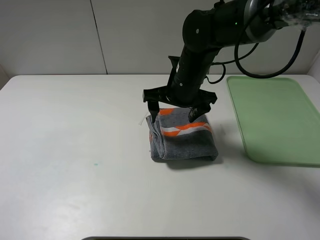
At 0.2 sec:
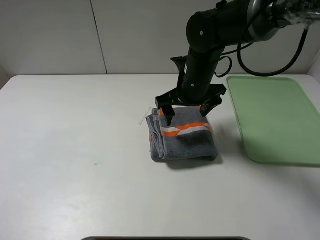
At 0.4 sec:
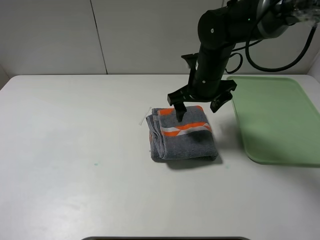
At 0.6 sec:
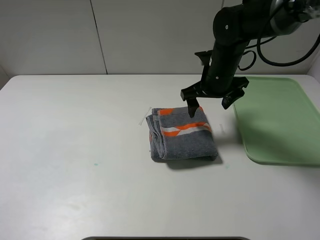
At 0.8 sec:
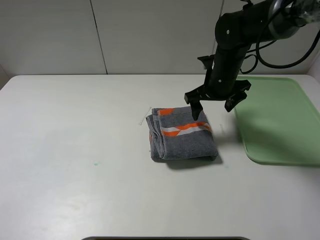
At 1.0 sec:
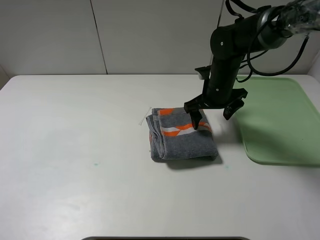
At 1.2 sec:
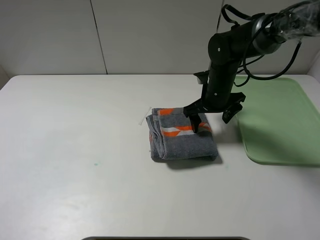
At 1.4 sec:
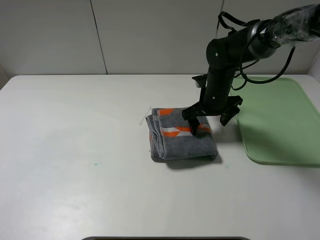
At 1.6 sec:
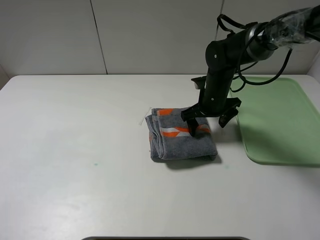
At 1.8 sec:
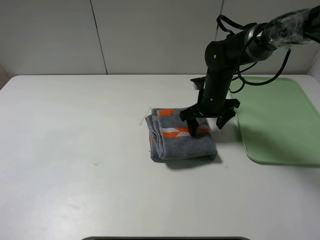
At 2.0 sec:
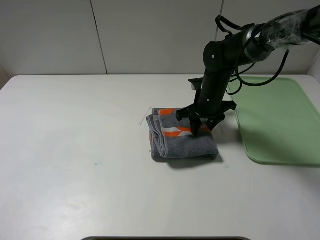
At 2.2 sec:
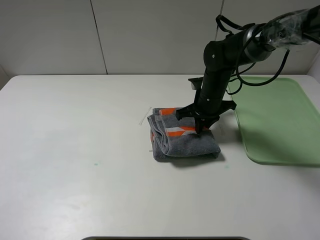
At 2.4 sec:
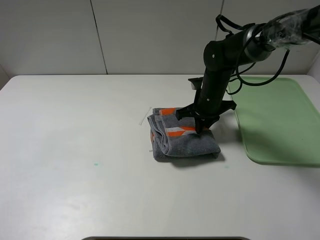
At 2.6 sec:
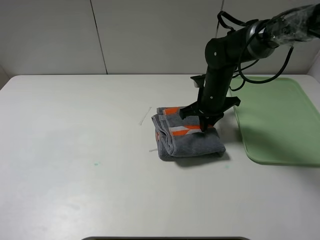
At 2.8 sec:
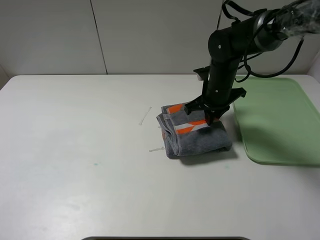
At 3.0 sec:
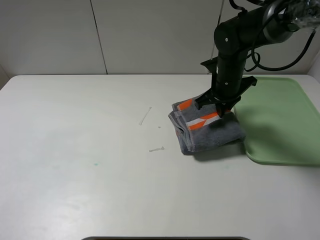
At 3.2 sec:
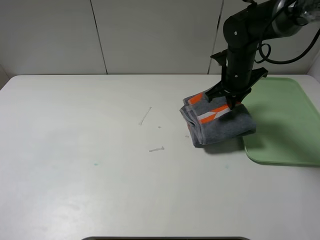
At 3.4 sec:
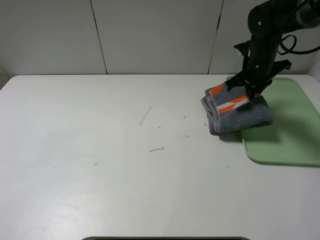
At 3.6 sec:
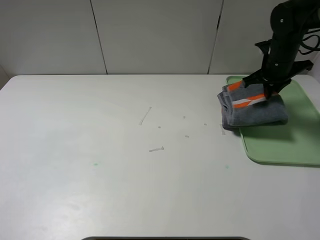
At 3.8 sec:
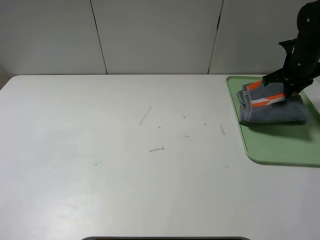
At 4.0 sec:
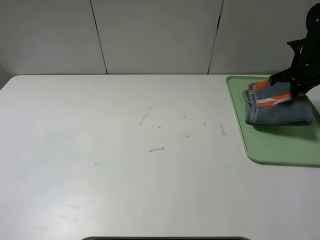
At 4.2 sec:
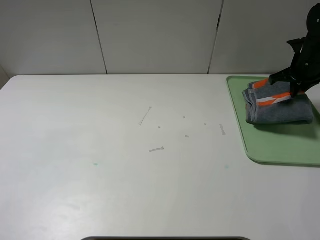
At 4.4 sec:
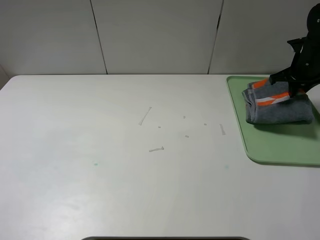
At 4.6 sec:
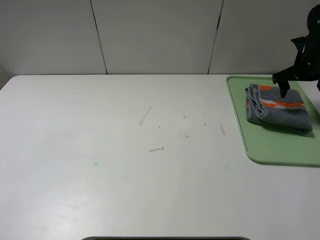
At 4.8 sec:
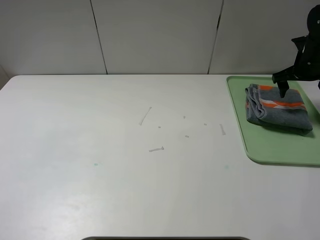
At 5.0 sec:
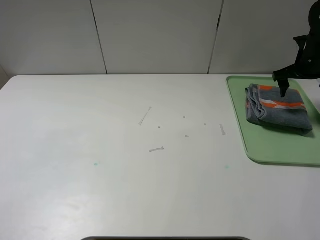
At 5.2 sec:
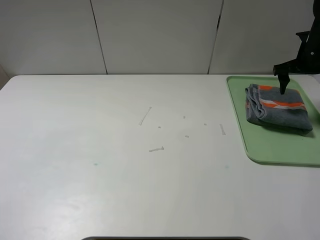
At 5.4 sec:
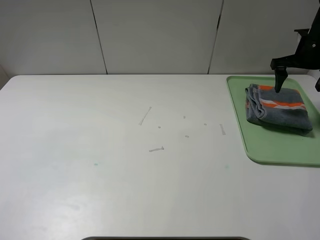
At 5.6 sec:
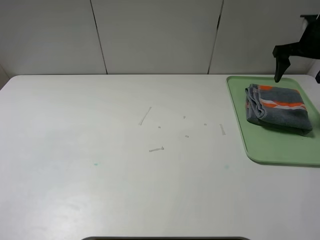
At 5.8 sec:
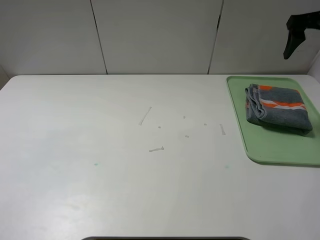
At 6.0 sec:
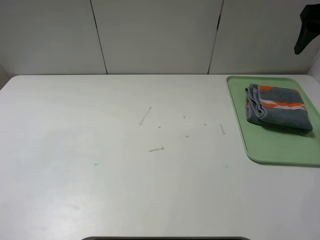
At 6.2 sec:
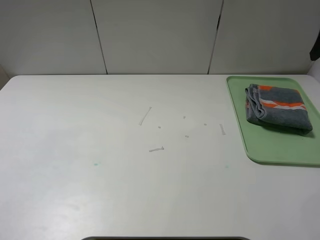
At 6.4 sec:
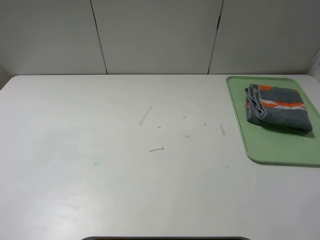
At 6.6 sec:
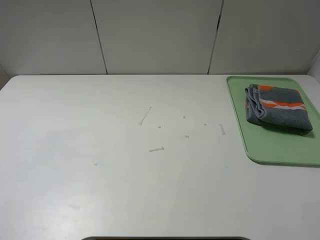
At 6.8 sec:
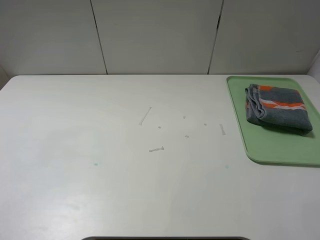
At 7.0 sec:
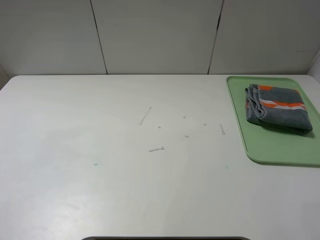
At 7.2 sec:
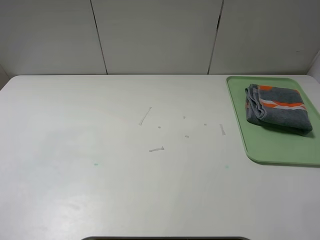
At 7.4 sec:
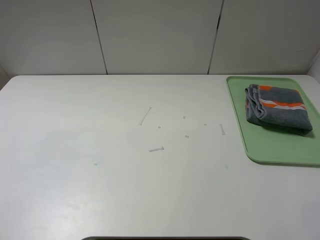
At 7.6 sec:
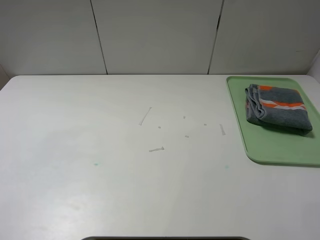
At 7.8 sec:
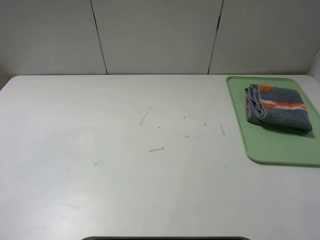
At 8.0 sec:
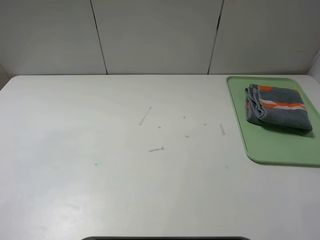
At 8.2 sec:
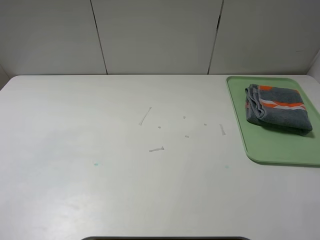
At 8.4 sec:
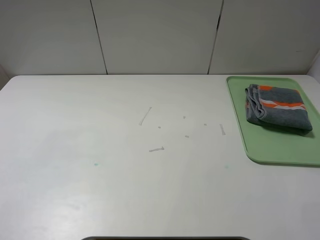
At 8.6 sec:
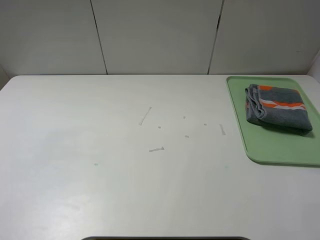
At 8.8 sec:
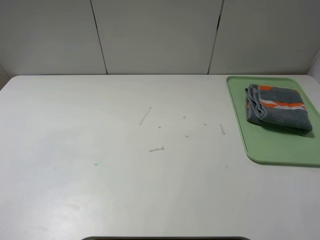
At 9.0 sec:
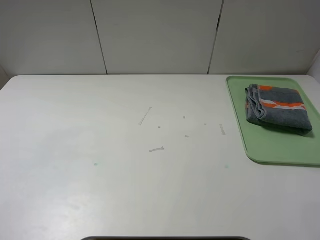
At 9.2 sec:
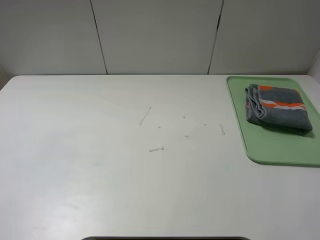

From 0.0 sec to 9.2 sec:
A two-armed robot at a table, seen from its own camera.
Step, from 0.0 sec to 4.8 sec: Place the folded grey towel on the tray with the right gripper.
From 0.0 sec to 1.6 sec: The right gripper travels to the right and downward by about 10 cm.
From 1.6 sec to 3.0 sec: The right gripper goes about 5 cm upward, and closes its fingers.
From 3.0 sec to 4.6 sec: The right gripper moves to the right, about 20 cm, and opens up.
From 4.6 sec to 6.2 sec: The right gripper moves upward and backward, some 25 cm.
